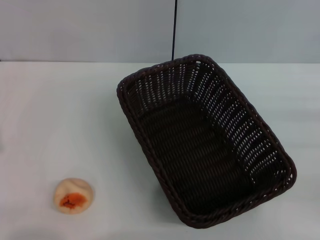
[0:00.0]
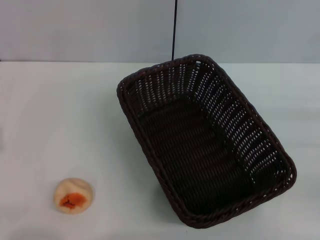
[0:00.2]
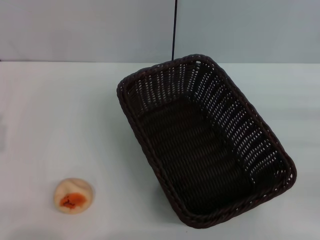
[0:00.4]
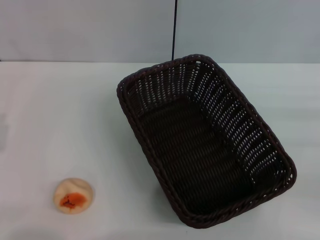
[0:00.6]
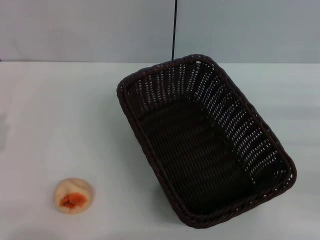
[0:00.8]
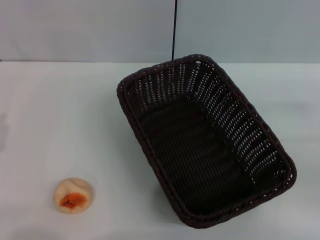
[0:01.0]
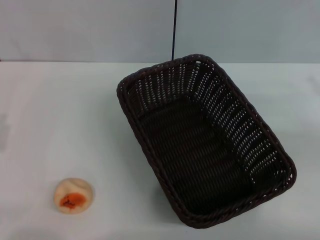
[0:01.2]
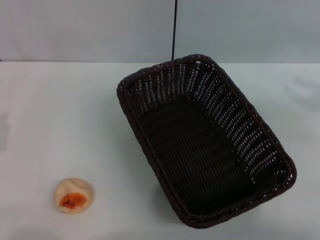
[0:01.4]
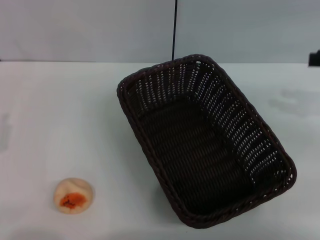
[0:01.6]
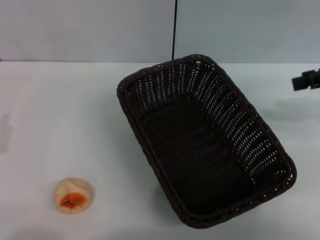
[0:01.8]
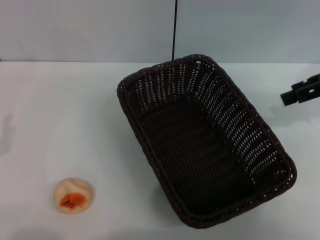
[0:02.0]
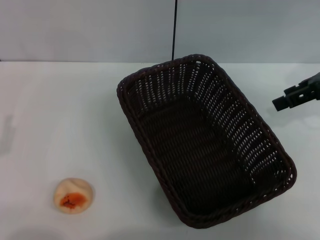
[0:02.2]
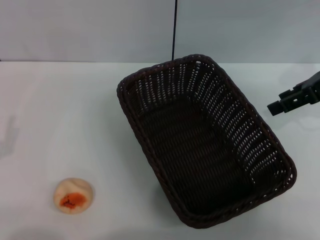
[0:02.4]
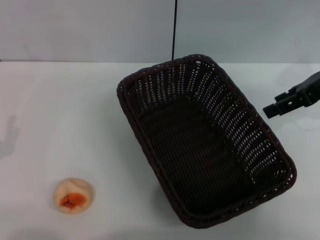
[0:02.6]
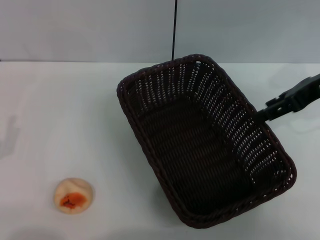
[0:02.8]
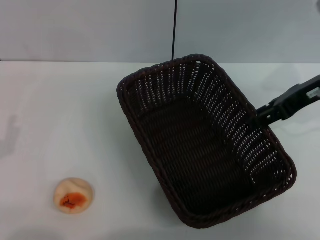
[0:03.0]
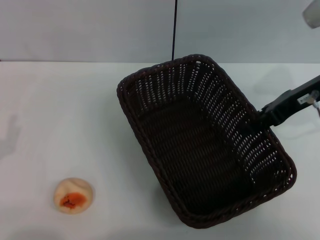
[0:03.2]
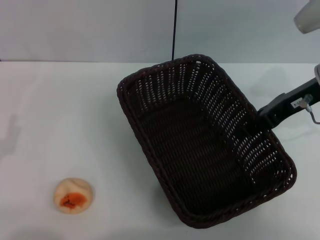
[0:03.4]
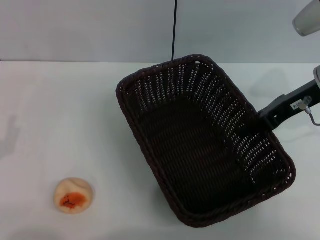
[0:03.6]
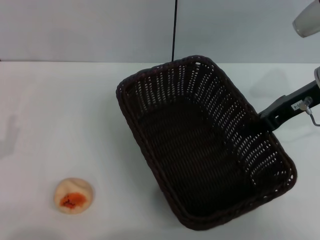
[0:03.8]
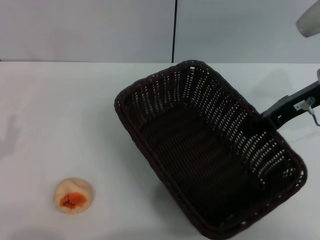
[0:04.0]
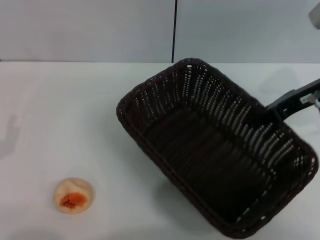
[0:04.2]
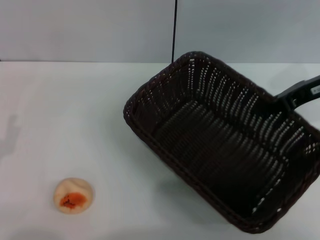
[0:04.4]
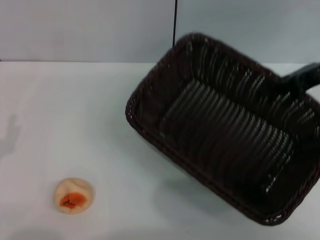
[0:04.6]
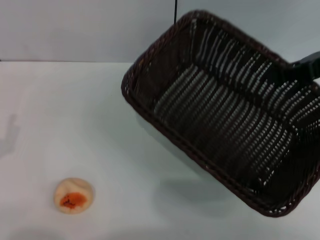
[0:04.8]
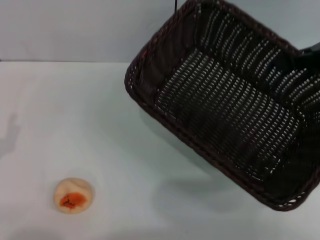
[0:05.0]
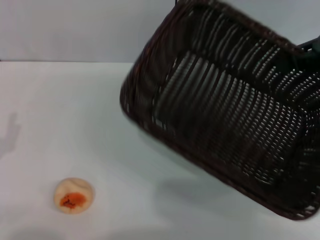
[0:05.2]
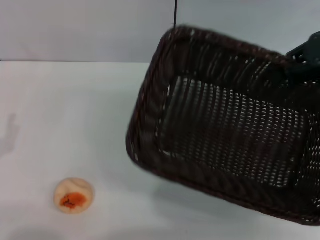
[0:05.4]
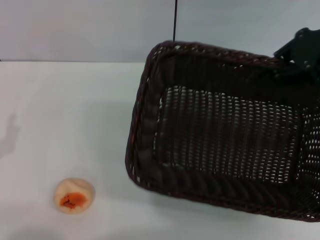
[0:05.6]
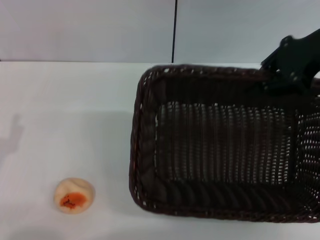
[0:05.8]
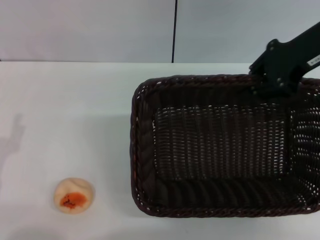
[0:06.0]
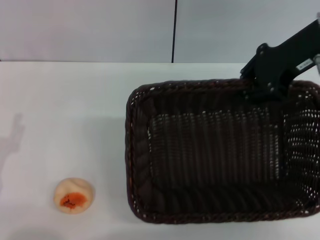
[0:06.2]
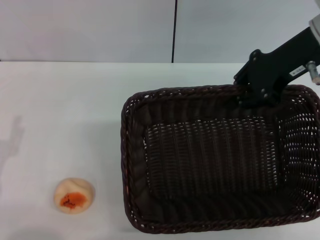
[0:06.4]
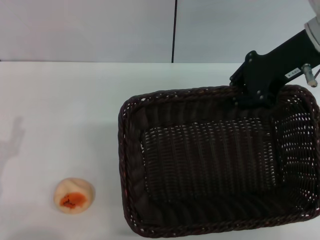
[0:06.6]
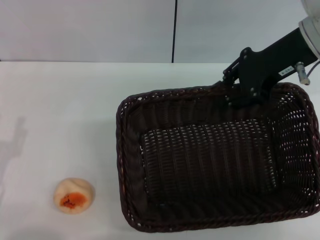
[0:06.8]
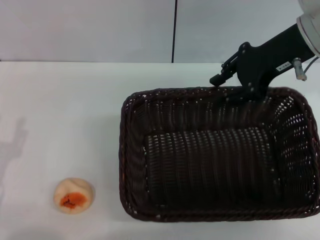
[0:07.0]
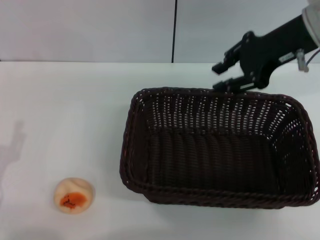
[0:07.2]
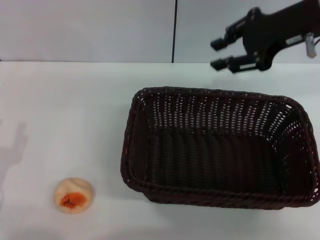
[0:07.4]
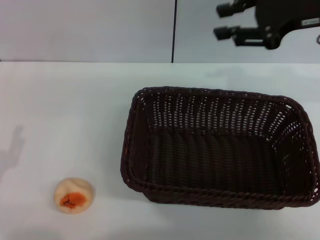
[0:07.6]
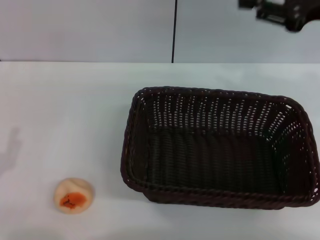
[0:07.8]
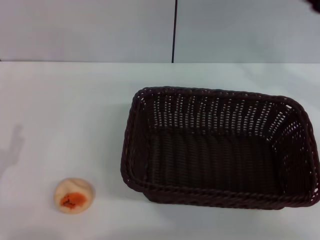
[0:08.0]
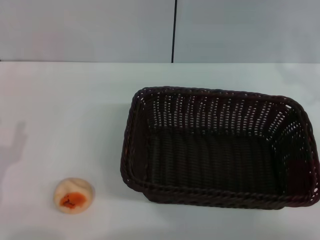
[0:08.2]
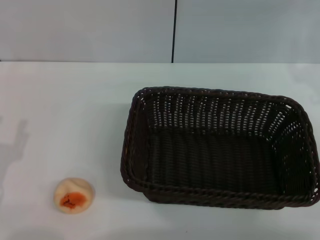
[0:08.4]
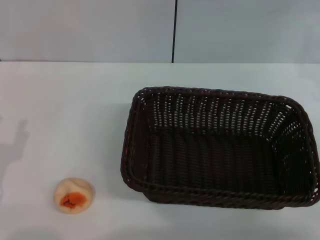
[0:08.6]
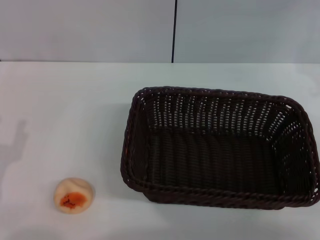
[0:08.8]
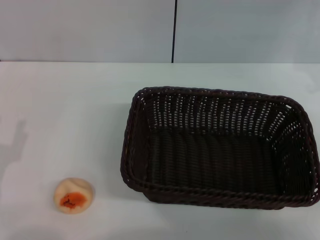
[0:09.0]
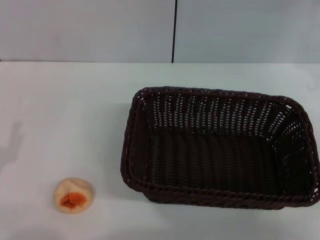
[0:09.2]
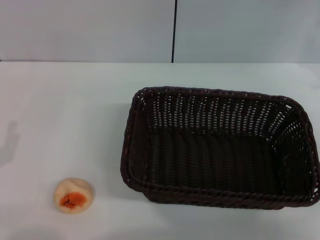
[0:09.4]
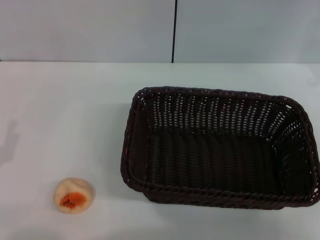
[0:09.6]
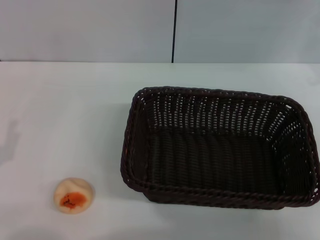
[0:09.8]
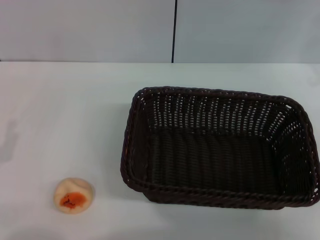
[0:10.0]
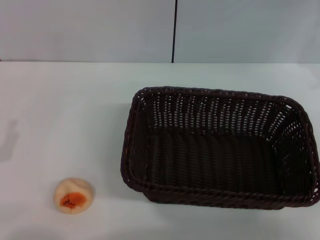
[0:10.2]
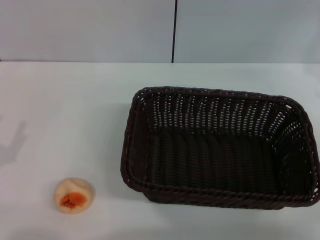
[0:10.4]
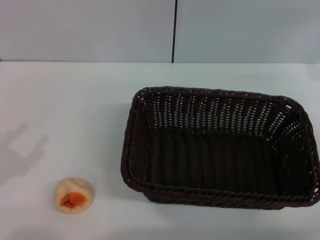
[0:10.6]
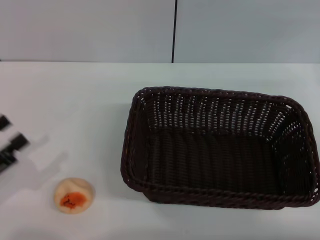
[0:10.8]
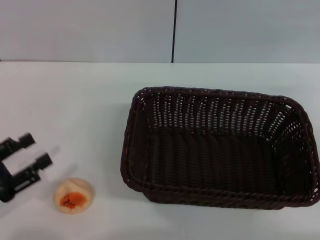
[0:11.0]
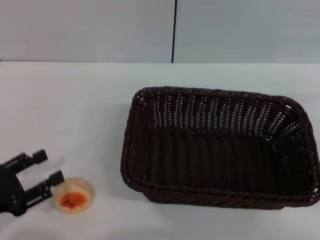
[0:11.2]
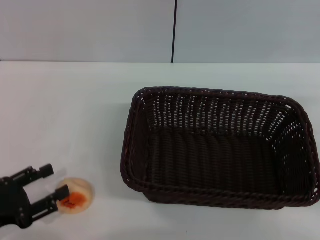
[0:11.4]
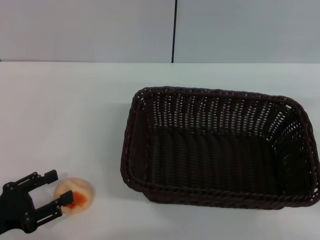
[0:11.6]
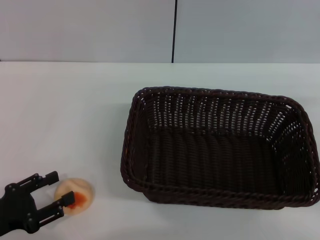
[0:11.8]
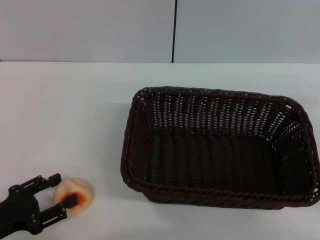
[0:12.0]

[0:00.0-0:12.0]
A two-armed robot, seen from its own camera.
Step, 0:00.0 to 0:07.2: Move the basket to the center of view with the right gripper.
0:00.0 to 0:01.6: The right gripper travels upward and forward by roughly 15 cm, and opens.
0:01.6 to 0:03.0: The right gripper shifts roughly 10 cm to the left.
0:03.0 to 0:04.4: The right gripper closes.
0:04.4 to 0:06.0: The right gripper shifts roughly 10 cm upward and to the left.
0:06.0 to 0:07.6: The right gripper opens up.
0:07.6 to 0:09.0: The right gripper moves downward and to the right, some 15 cm.
0:10.4 to 0:12.0: The right gripper heads backward, covering some 5 cm. The left gripper changes place by approximately 5 cm.

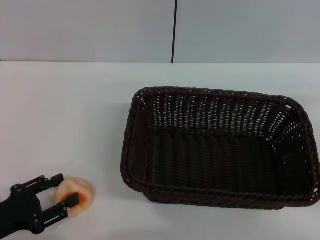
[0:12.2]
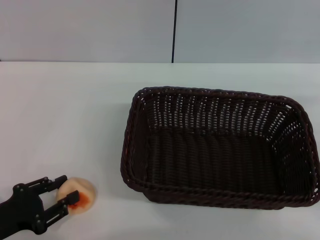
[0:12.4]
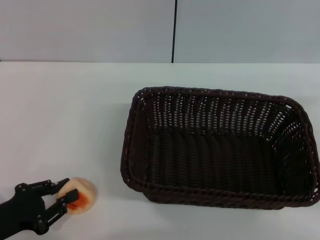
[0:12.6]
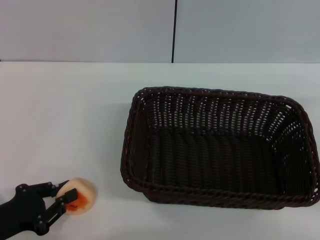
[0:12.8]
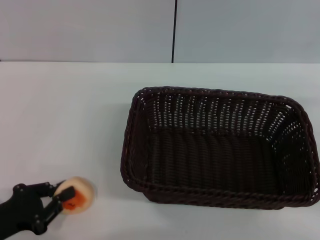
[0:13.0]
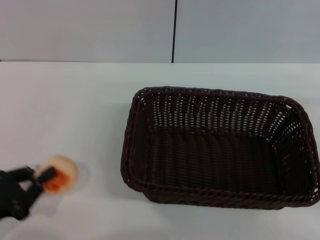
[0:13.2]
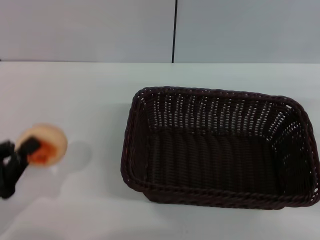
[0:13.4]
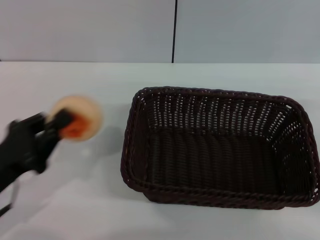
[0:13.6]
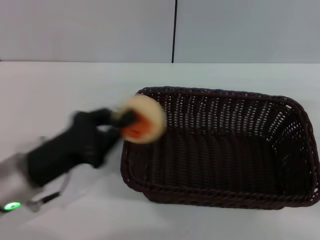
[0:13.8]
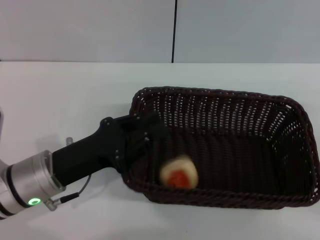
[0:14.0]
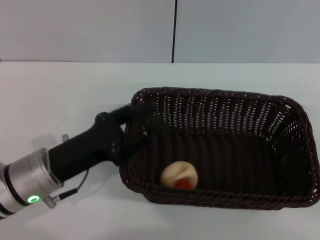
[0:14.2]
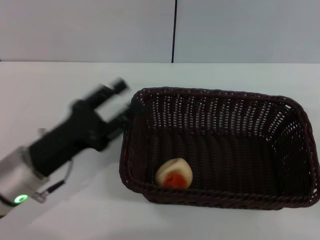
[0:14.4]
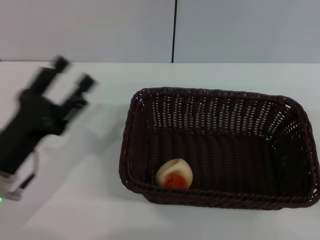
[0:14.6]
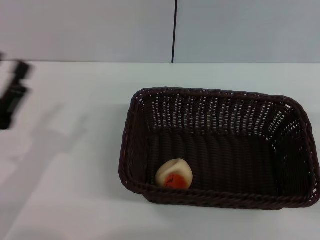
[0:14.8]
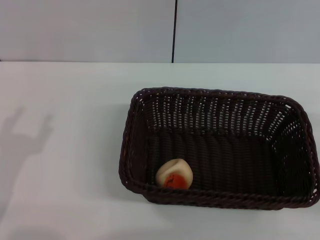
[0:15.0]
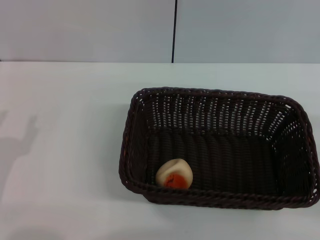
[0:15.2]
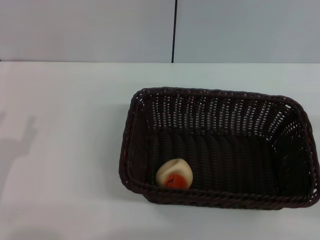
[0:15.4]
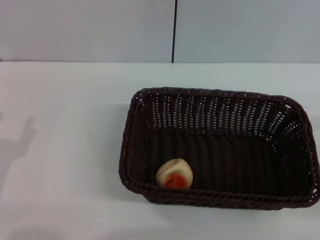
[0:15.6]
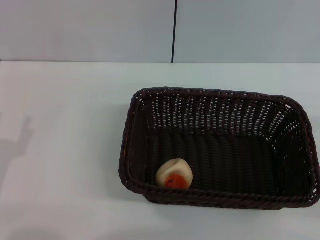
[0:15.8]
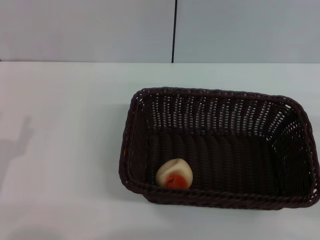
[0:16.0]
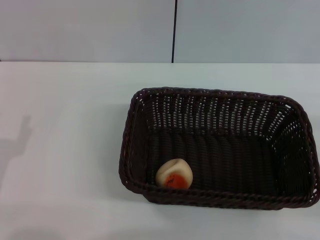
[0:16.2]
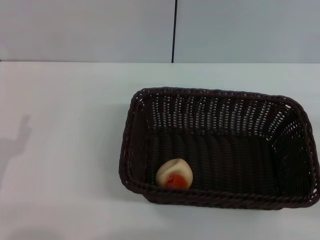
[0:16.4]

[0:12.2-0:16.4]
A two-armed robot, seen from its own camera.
Step, 0:13.4 to 0:14.4: Place the egg yolk pastry into the basket with the left gripper.
0:12.2 to 0:13.6: The left gripper ends up approximately 5 cm from where it was, and closes its fingers.
0:13.6 to 0:15.0: The left gripper goes to the right and returns, roughly 10 cm each way, and opens.

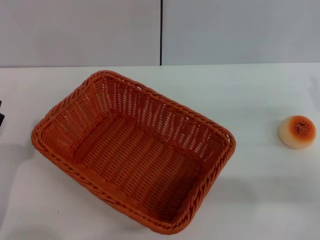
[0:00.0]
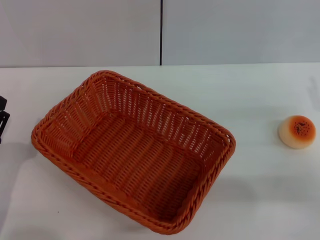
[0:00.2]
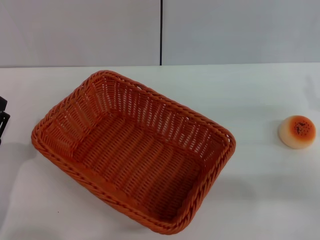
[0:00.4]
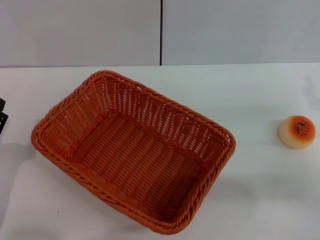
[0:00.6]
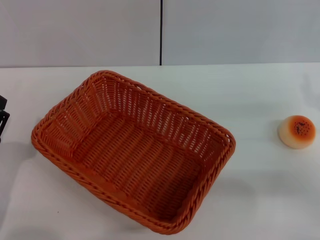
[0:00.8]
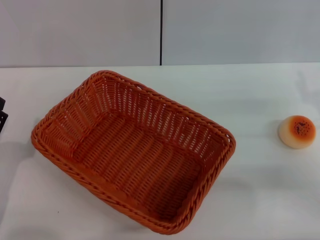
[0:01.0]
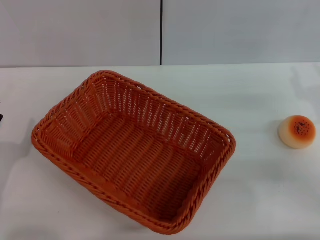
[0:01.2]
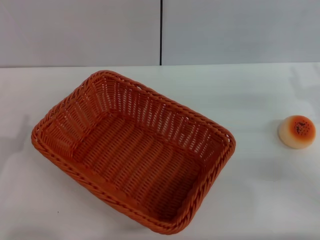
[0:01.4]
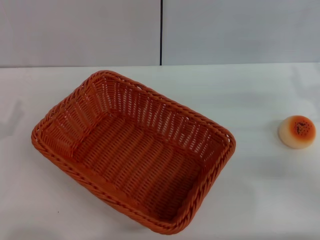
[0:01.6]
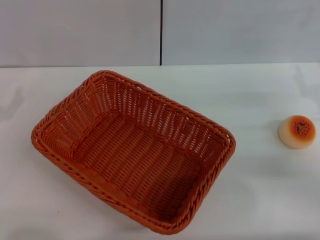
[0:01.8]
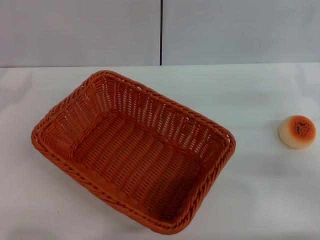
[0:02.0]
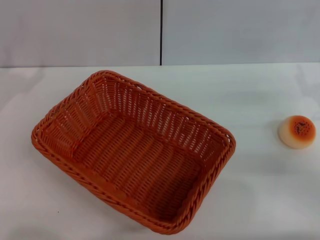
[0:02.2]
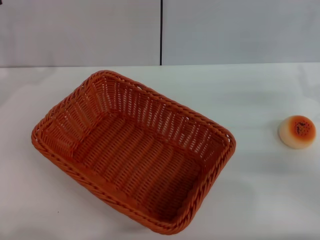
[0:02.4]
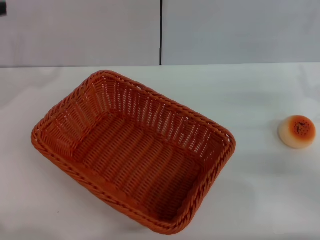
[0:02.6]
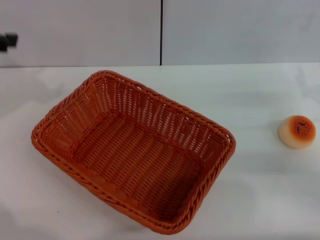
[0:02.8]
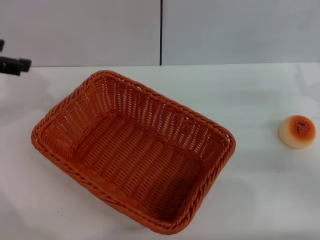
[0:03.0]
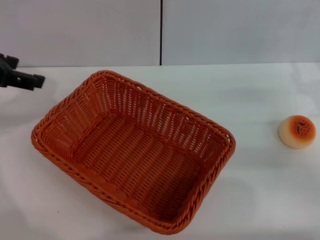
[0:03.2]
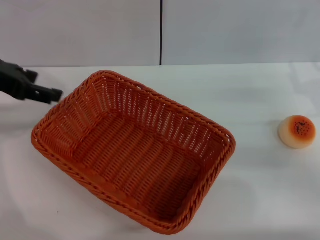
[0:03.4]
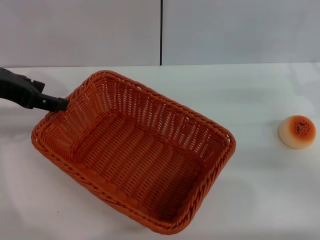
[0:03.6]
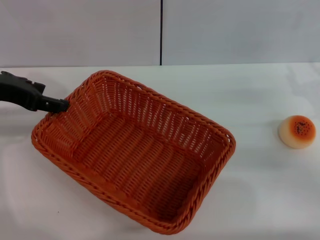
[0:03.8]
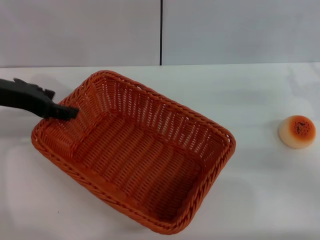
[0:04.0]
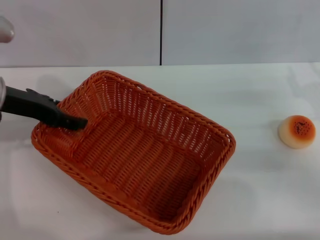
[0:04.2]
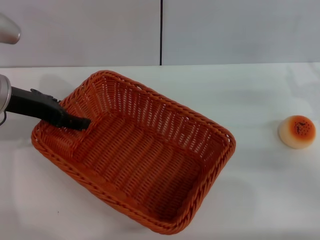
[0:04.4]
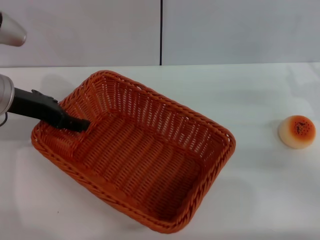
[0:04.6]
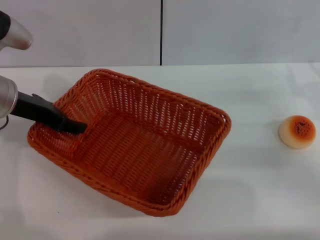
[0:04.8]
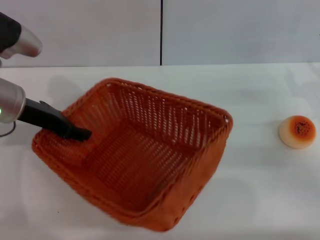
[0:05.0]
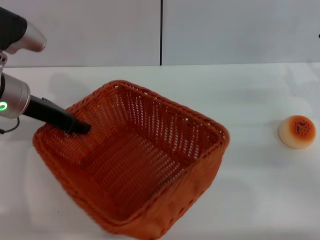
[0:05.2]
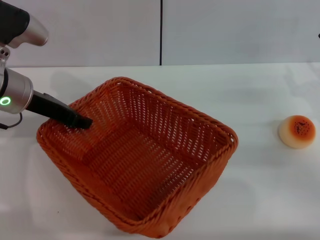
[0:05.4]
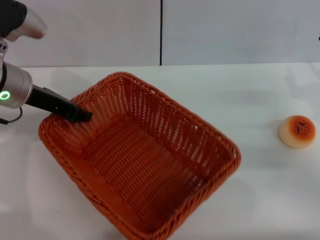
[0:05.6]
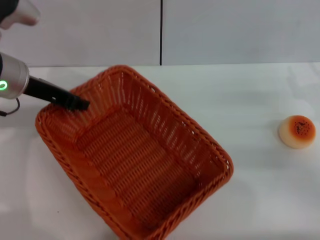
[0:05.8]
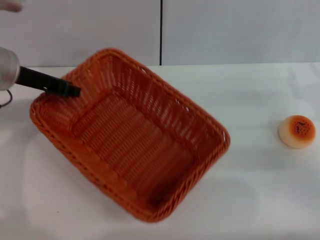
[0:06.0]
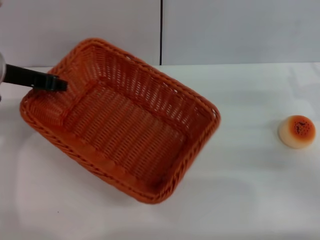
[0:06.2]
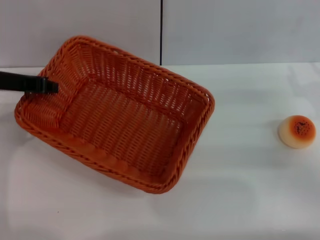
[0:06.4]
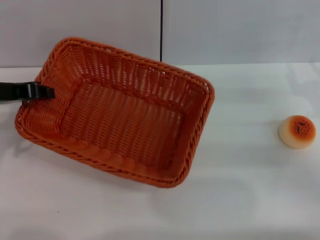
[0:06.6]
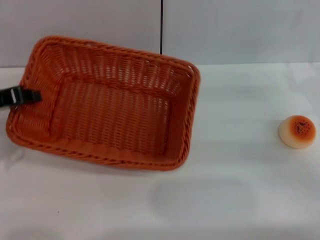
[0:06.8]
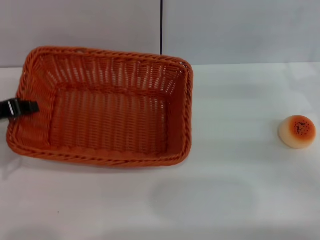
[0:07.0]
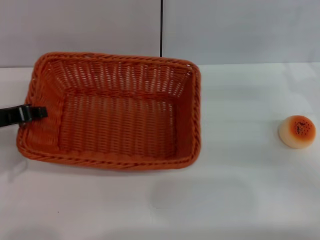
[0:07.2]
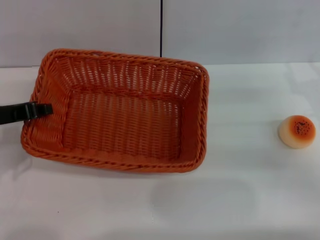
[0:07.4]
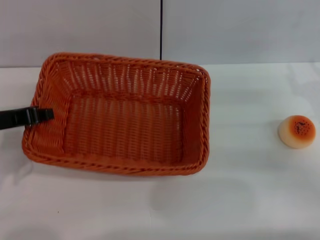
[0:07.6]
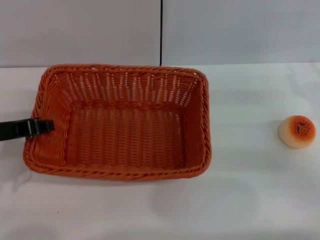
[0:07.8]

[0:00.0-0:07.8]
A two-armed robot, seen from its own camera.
0:01.6 to 0:03.2: The left gripper heads upward and forward, covering approximately 25 cm.
0:03.2 to 0:04.6: The left gripper moves downward, approximately 10 cm.
0:04.6 to 0:06.2: The left gripper closes.
0:06.2 to 0:07.8: The left gripper heads backward, covering about 10 cm.
